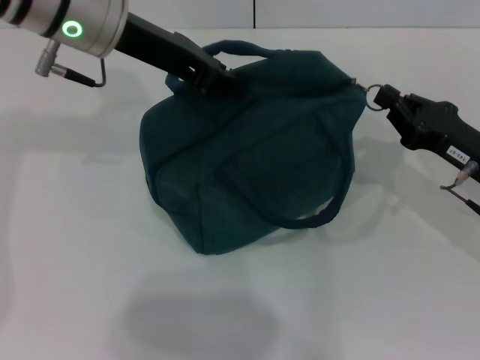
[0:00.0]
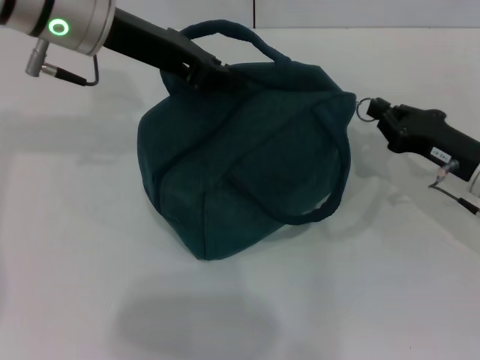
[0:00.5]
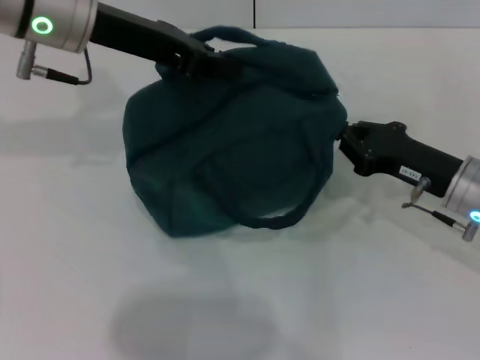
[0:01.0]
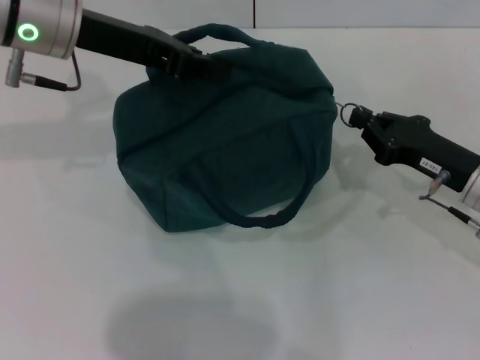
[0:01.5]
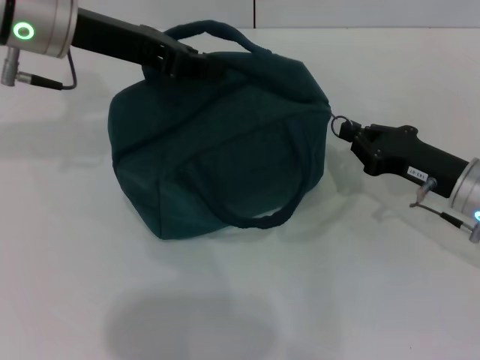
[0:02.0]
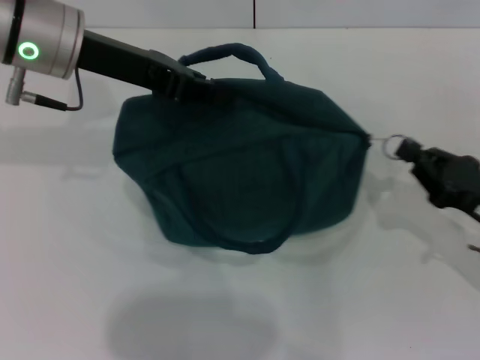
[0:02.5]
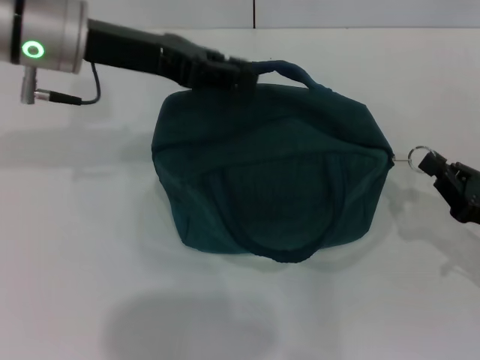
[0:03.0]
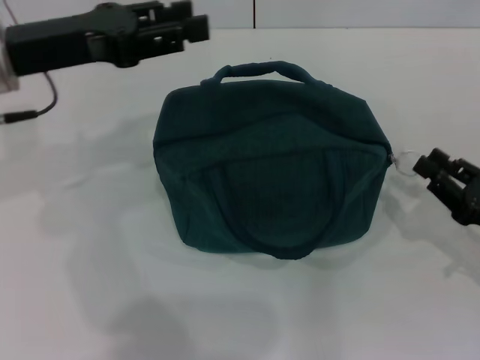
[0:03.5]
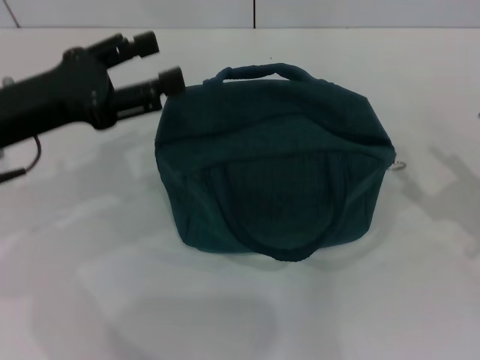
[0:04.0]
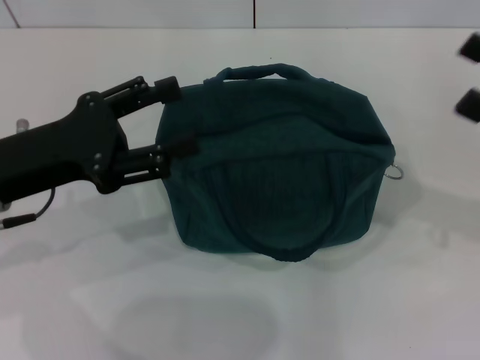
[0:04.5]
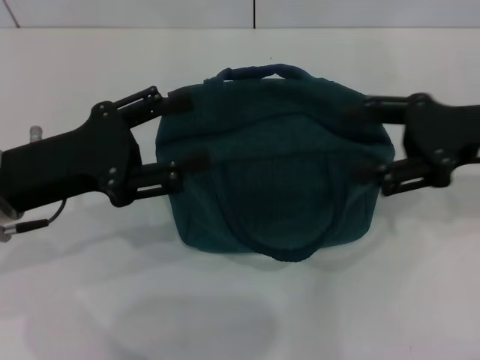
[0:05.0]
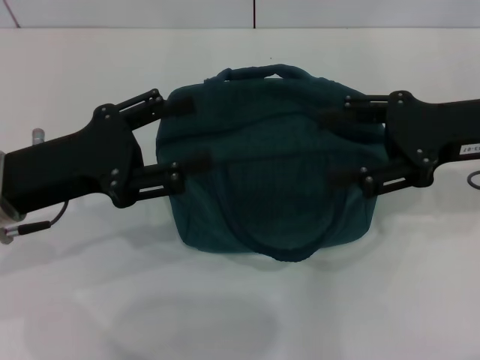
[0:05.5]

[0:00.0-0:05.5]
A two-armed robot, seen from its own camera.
Step, 0:00.0 to 0:03.0: Hold the lunch bag with your left hand.
0:02.0 to 0:03.5: The right gripper heads backward and to the right, covering some 10 cm. The left gripper changes place by some 5 cm, and opens up.
0:03.5 to 0:05.5: The right gripper goes roughly 20 cm upward, forward and to the left, and opens up. The left gripper travels backward and downward by about 10 cm, and opens.
